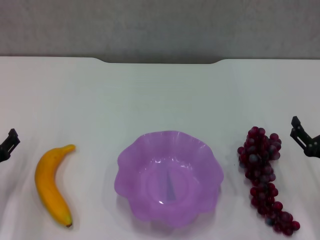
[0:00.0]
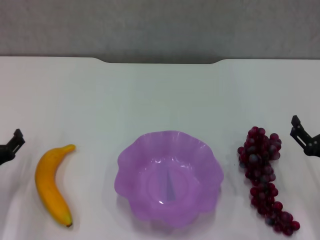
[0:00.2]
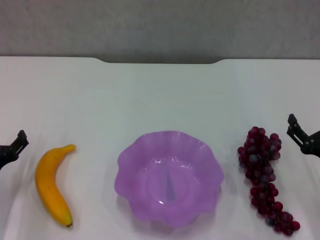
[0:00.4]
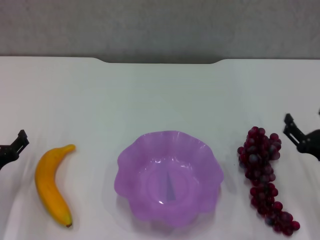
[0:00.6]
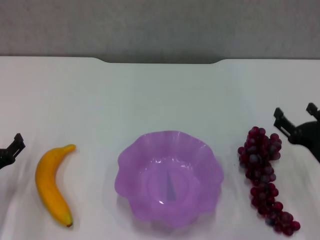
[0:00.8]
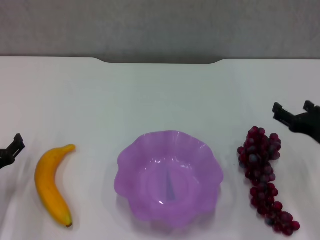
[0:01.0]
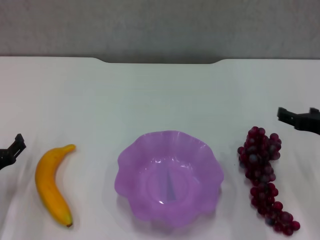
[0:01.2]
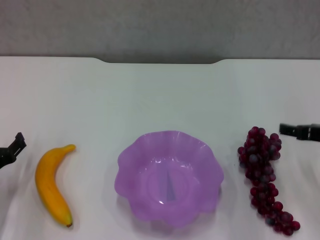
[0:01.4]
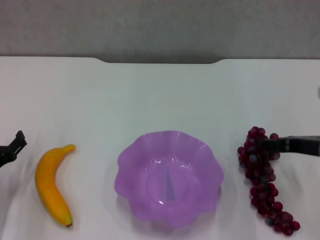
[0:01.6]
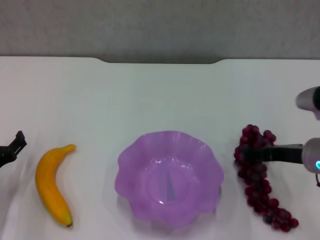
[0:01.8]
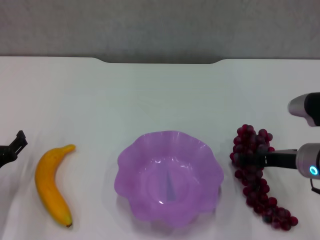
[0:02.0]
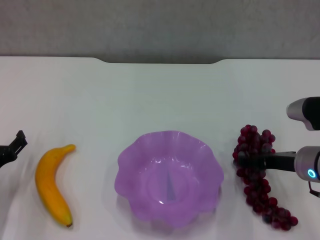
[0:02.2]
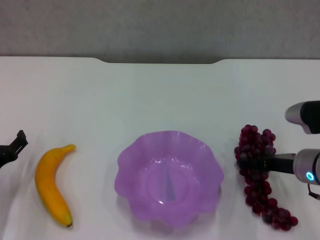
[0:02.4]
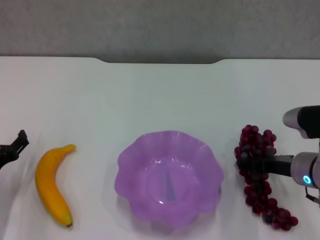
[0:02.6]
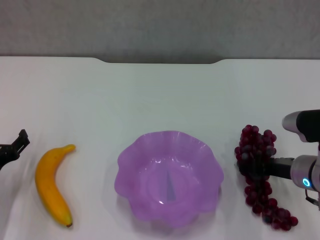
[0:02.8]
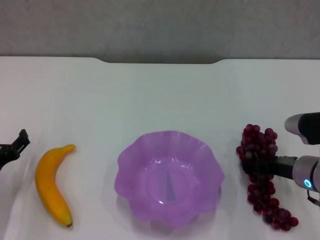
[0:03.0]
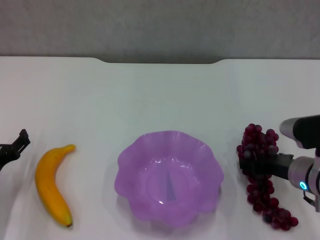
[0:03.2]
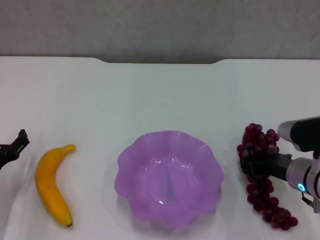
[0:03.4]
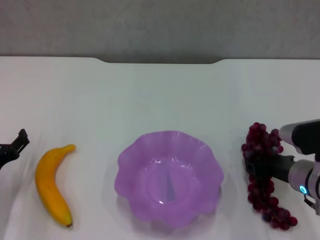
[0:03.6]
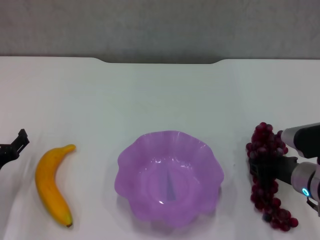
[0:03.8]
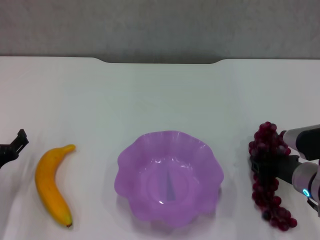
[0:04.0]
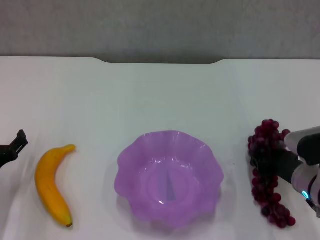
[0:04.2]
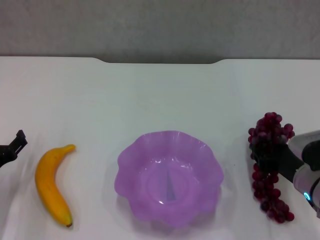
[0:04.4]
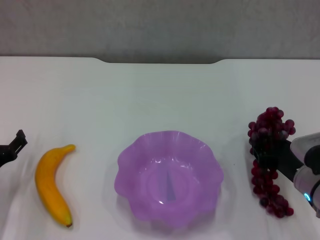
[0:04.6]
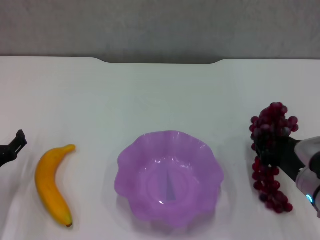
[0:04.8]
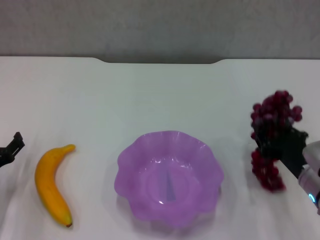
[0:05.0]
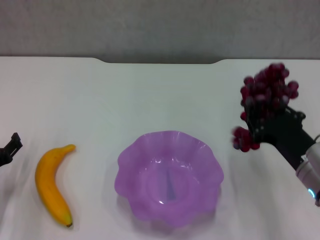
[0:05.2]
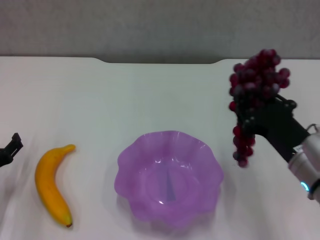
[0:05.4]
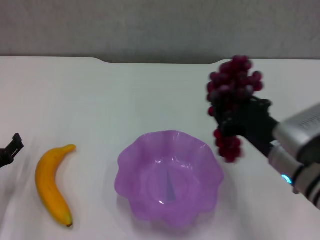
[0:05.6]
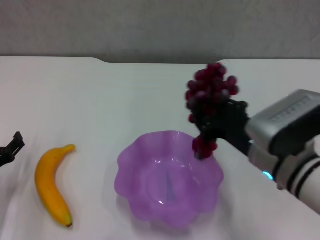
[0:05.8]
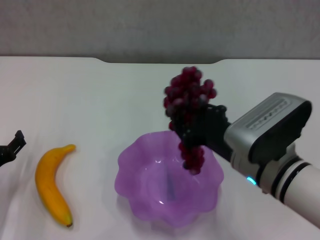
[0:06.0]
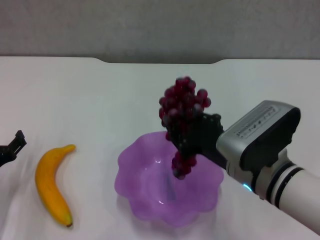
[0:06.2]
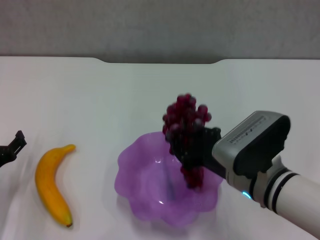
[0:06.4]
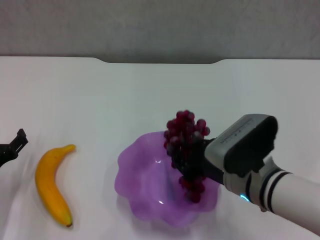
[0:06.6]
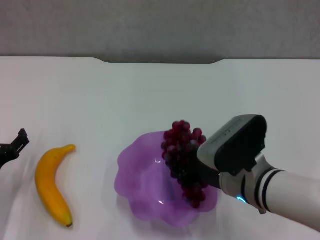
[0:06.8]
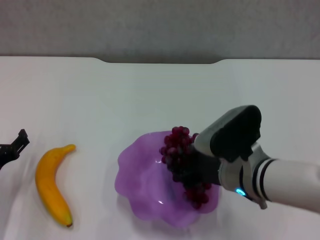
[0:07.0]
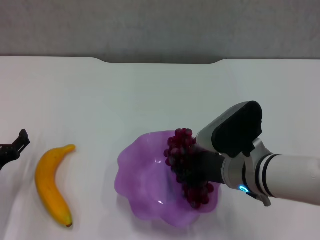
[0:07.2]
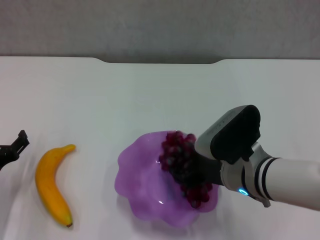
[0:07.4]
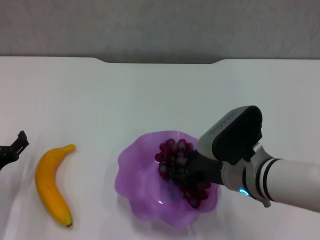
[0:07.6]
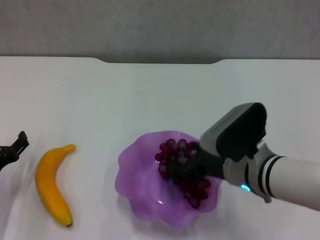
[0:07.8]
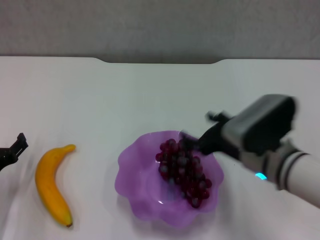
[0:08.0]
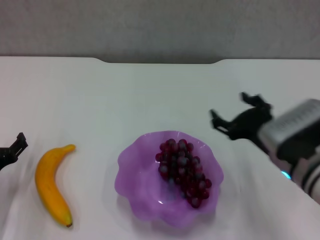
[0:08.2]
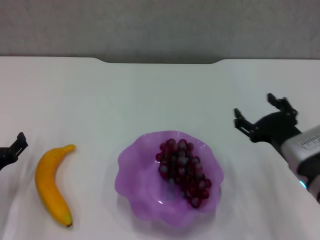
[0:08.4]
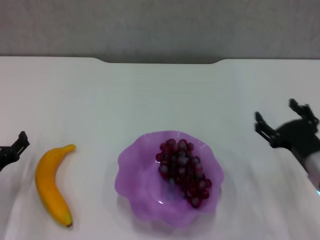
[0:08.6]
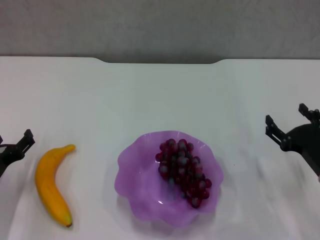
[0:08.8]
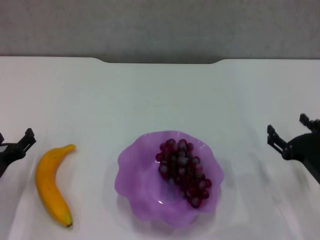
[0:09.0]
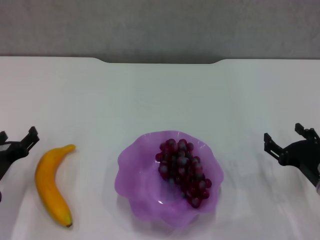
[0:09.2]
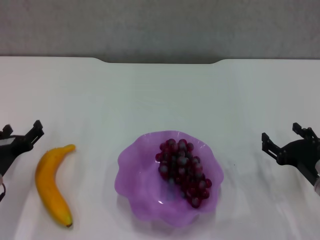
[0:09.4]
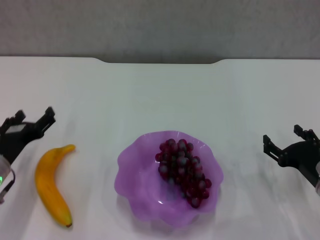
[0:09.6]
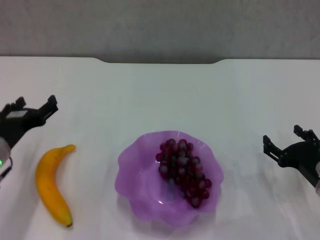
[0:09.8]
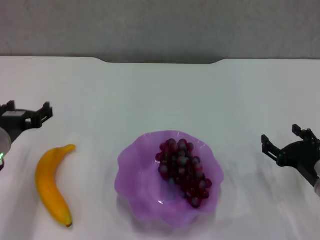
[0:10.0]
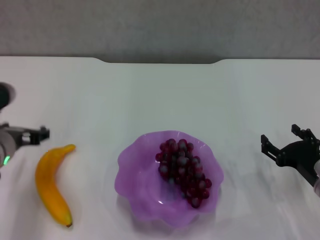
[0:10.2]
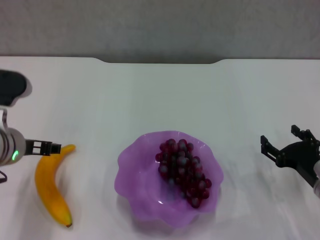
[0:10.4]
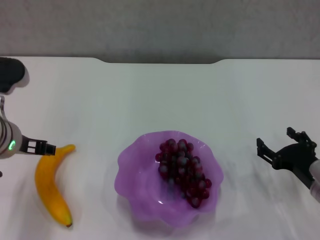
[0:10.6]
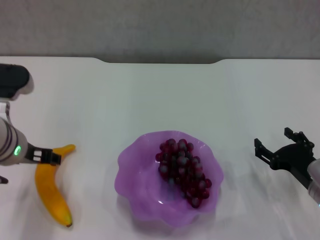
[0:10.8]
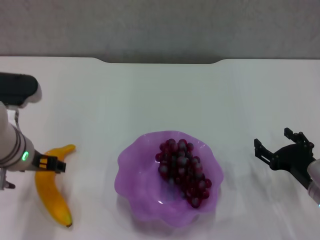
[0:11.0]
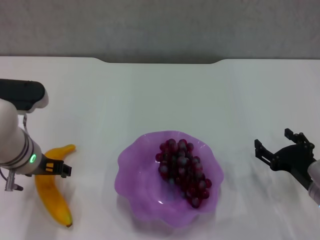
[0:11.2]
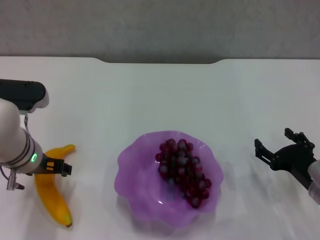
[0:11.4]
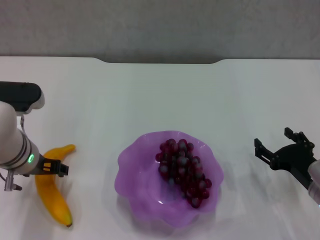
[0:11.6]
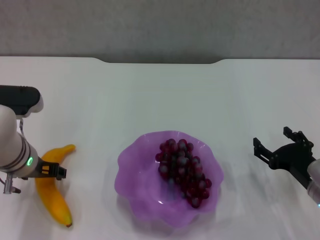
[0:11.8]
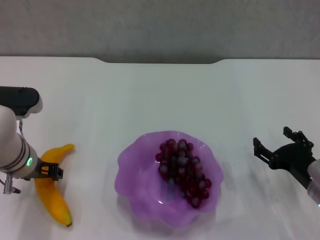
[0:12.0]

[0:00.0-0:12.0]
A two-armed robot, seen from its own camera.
Step, 0:00.0 to 0:03.2: Grasp the grape with right gripper.
Step, 0:03.4 to 0:08.0: Place the grape in the purple plate with right gripper.
0:00.0 to 0:01.6: The right gripper goes about 10 cm upward and forward.
0:01.6 to 0:03.0: The right gripper heads downward, covering some 5 cm.
0:03.0 to 0:04.4: The right gripper closes up.
0:04.4 to 0:06.0: The right gripper is displaced to the left and upward by some 15 cm.
0:07.6 to 0:09.0: The right gripper heads to the right and downward, covering some 15 cm, and opens its fingers.
0:09.0 to 0:10.4: The left gripper heads upward and to the right, covering some 15 cm.
0:10.4 to 0:12.0: The left gripper shifts by about 5 cm.

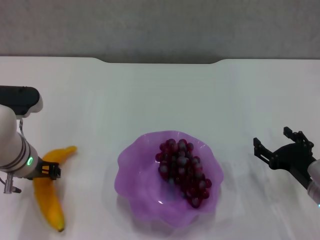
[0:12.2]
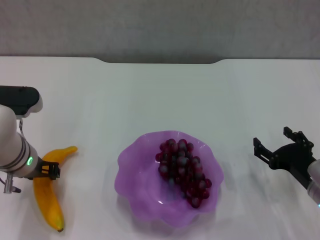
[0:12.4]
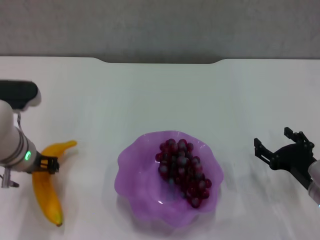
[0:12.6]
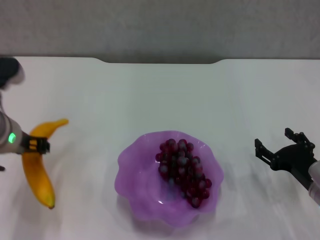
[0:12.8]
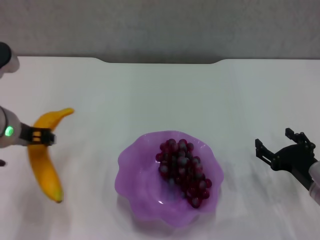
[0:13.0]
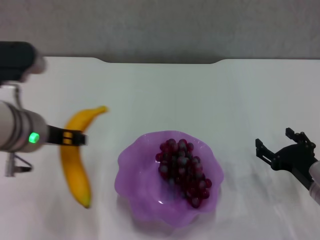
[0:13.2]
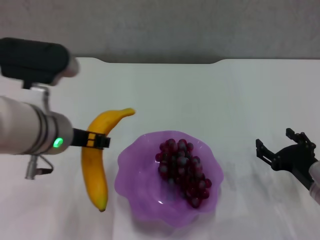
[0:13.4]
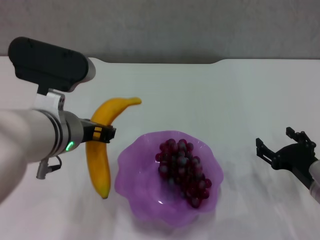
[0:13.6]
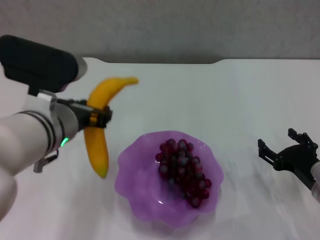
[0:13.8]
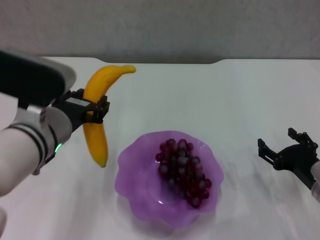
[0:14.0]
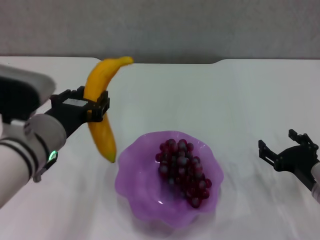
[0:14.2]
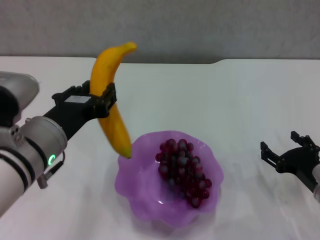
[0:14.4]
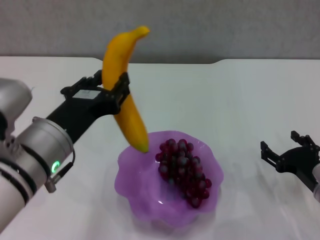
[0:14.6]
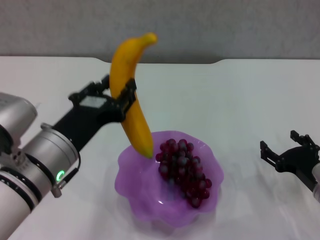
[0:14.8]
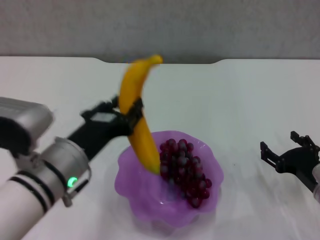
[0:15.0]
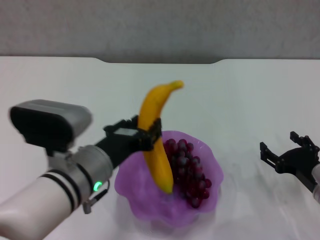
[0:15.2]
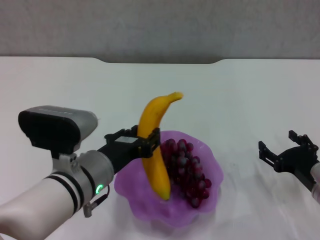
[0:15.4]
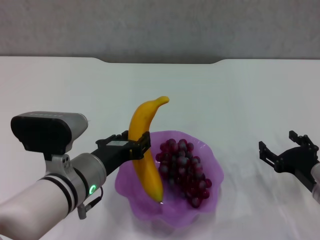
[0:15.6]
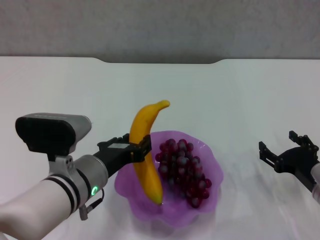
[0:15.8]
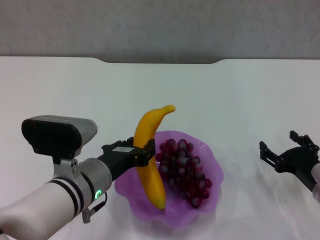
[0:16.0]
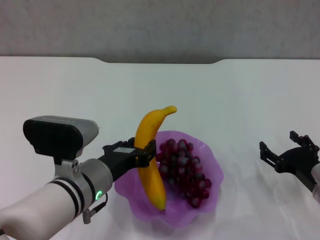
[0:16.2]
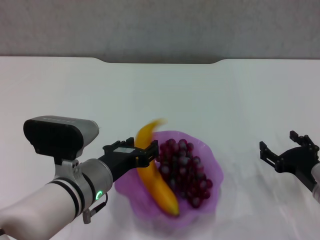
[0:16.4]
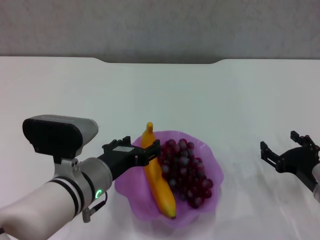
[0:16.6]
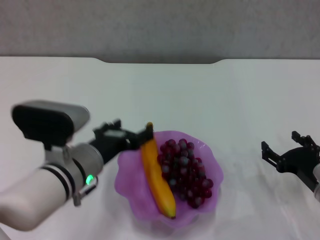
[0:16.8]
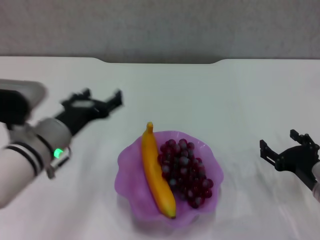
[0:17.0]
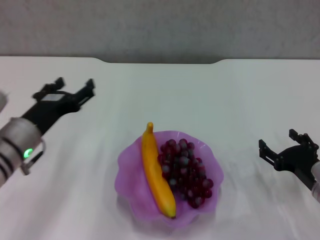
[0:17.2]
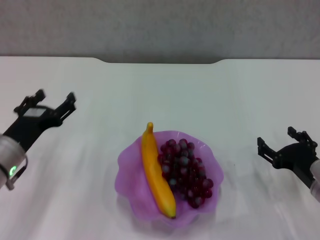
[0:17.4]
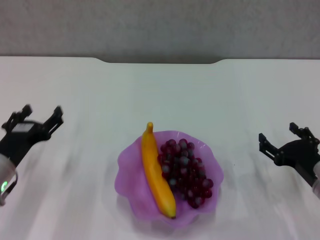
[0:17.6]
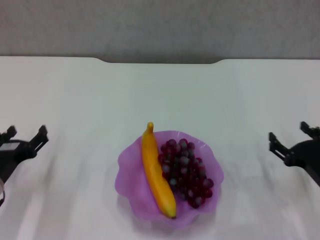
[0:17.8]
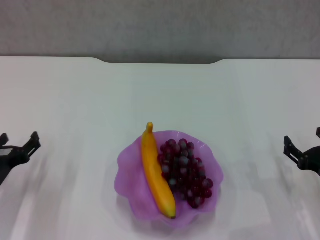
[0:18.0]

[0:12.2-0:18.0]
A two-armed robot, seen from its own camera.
Step, 0:12.4 to 0:16.8: Place the banana in the purple plate with left gripper.
0:12.2 to 0:13.6: The left gripper moves upward and to the right, about 10 cm, and closes.
0:13.6 to 0:15.0: The left gripper heads downward, covering approximately 5 cm.
0:15.0 to 0:16.6: The left gripper ends up roughly 5 cm from where it was.
0:16.6 to 0:18.0: The left gripper is displaced to the left by about 20 cm, and opens its fingers.

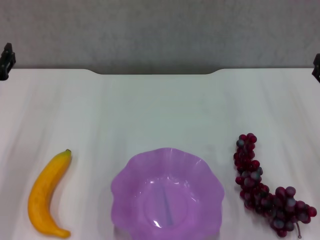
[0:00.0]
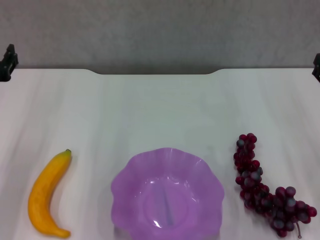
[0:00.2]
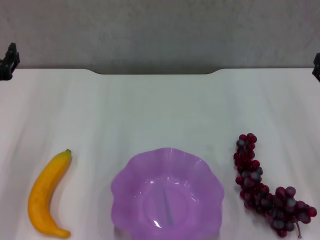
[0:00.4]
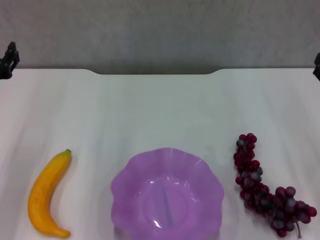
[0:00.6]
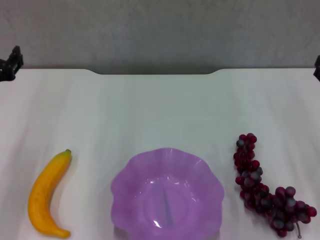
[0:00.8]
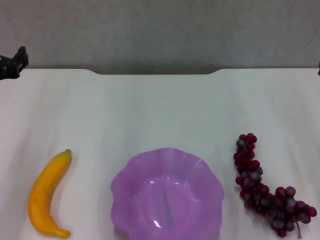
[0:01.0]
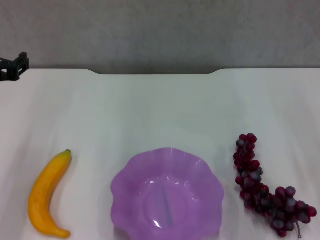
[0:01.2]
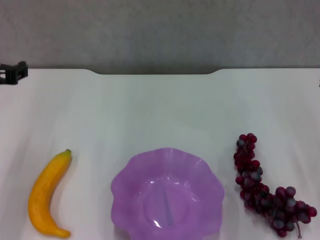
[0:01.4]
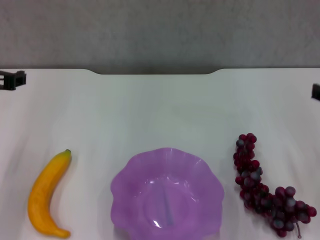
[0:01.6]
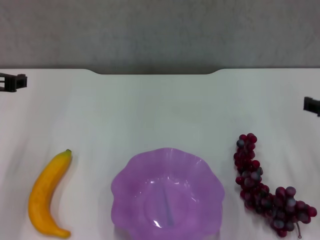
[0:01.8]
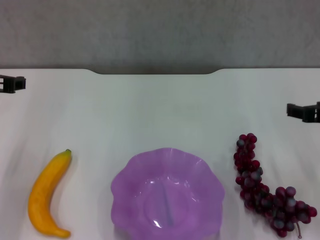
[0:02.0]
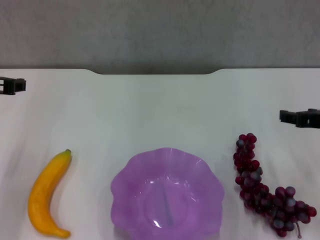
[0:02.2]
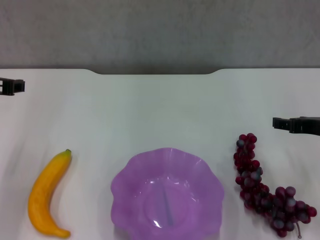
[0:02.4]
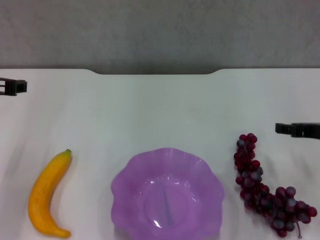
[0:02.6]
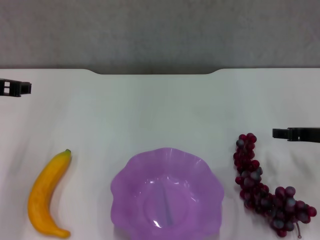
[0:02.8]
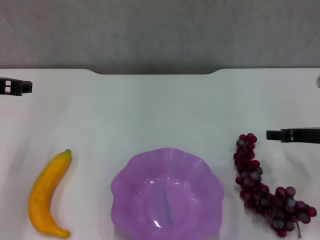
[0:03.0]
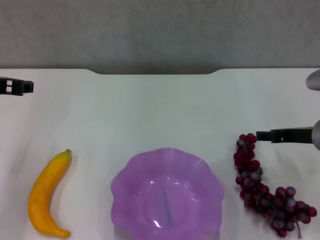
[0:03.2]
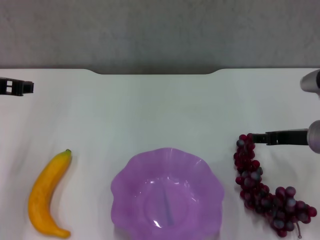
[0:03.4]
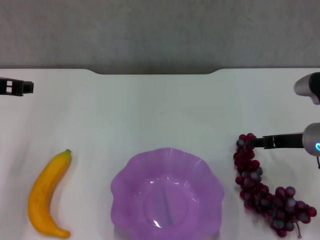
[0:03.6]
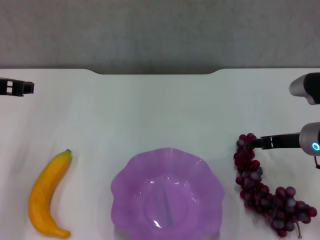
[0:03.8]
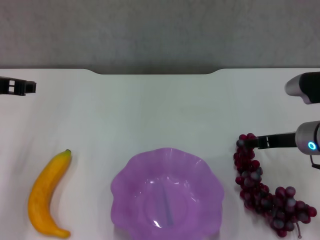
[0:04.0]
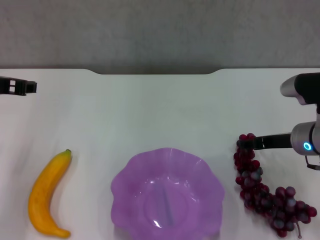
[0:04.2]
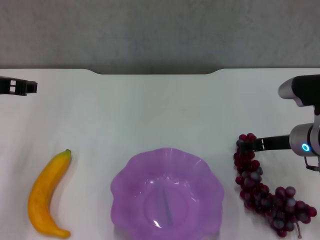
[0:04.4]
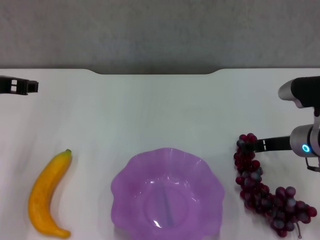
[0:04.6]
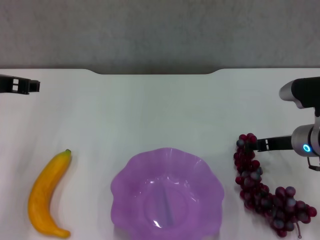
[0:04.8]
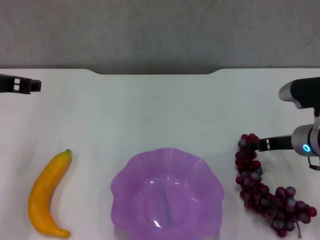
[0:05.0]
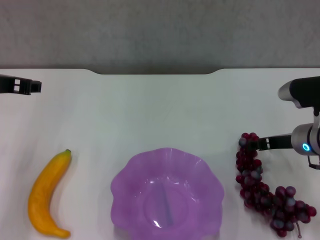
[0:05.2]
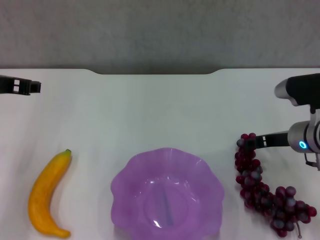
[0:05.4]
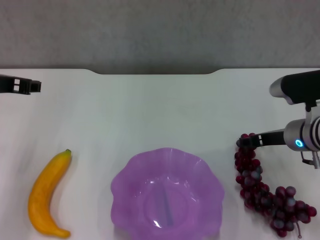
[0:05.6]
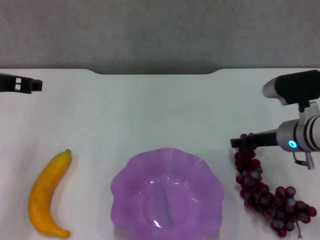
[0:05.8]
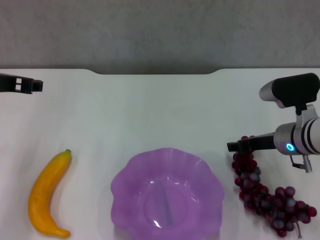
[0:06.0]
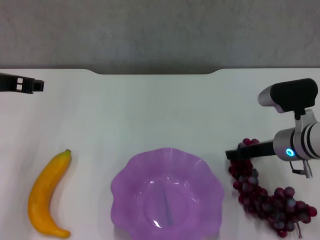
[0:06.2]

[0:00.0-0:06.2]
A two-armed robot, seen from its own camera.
0:00.0 to 0:01.6: The left gripper shifts roughly 5 cm upward.
0:01.6 to 0:03.2: The right gripper shifts approximately 10 cm downward and forward.
0:03.2 to 0:04.6: The grippers make only small movements.
0:04.6 to 0:06.2: The grippers move only a little.
